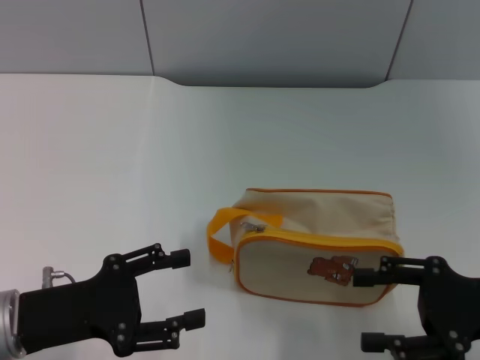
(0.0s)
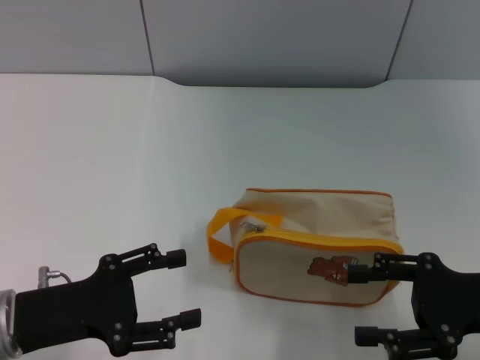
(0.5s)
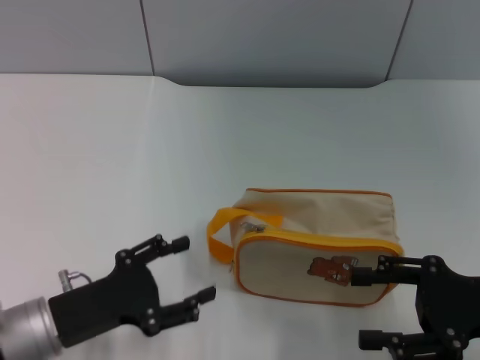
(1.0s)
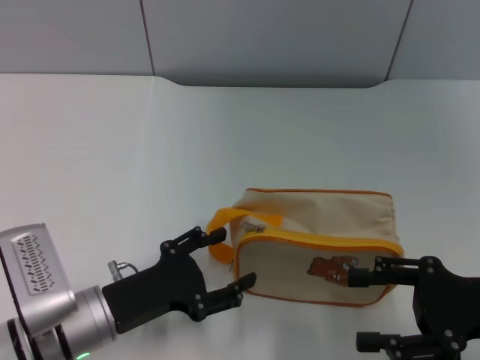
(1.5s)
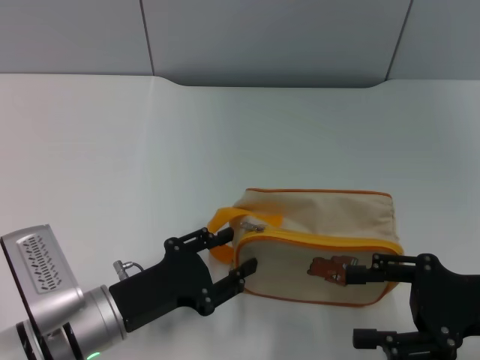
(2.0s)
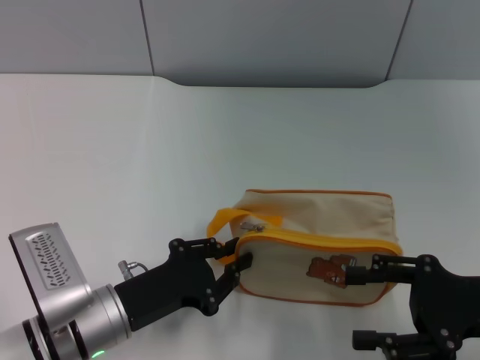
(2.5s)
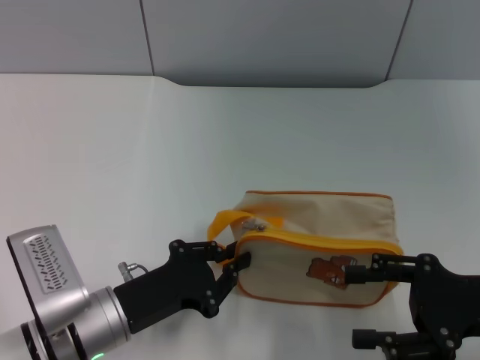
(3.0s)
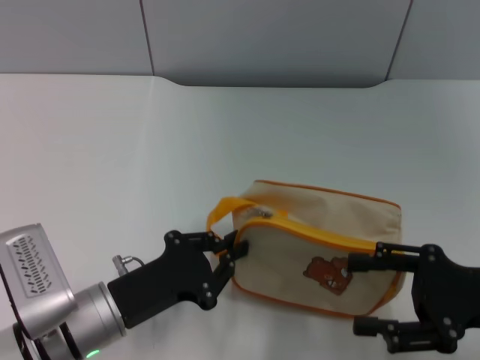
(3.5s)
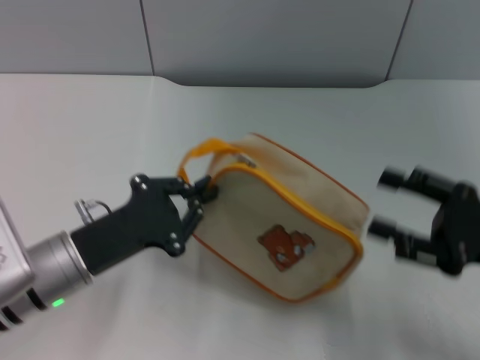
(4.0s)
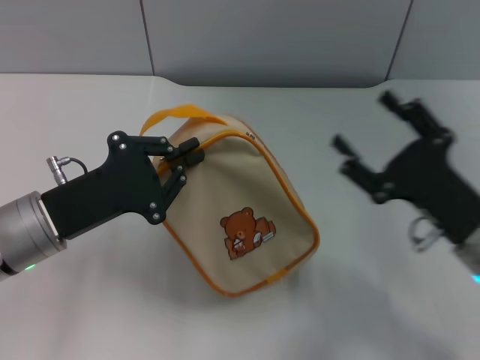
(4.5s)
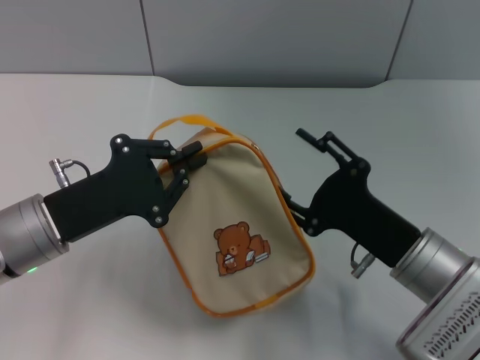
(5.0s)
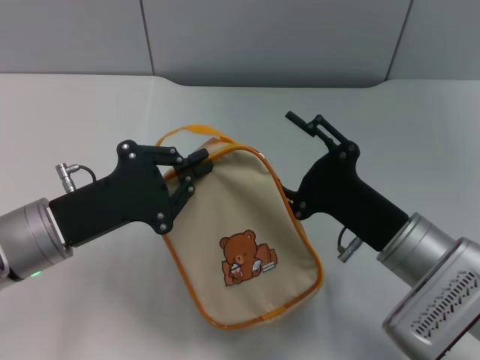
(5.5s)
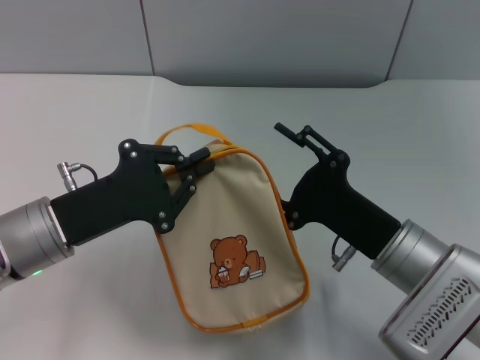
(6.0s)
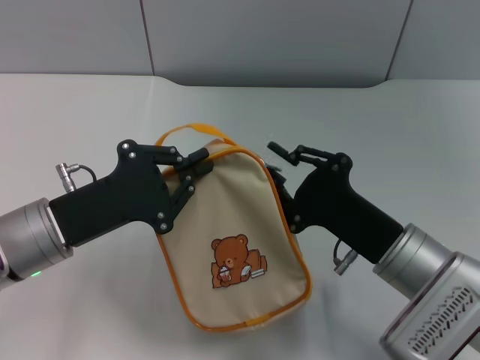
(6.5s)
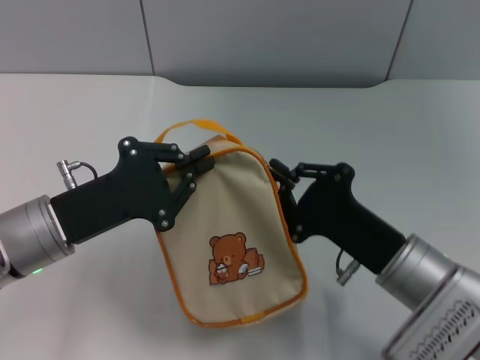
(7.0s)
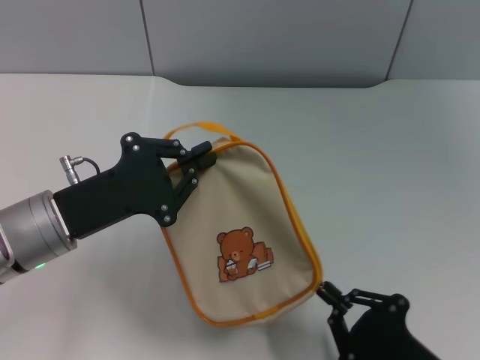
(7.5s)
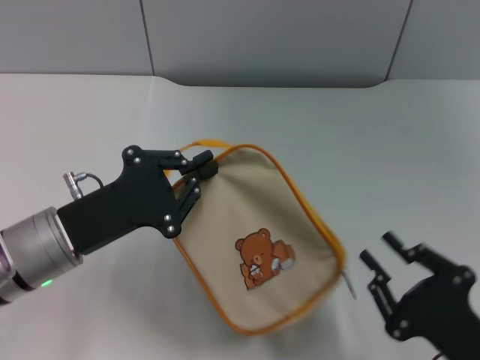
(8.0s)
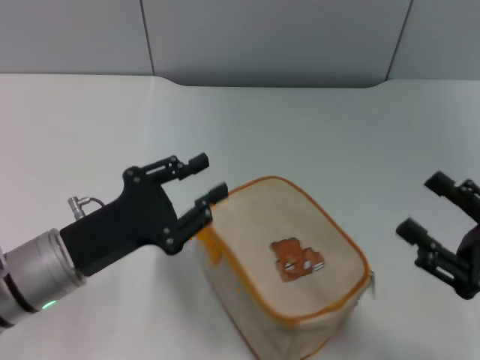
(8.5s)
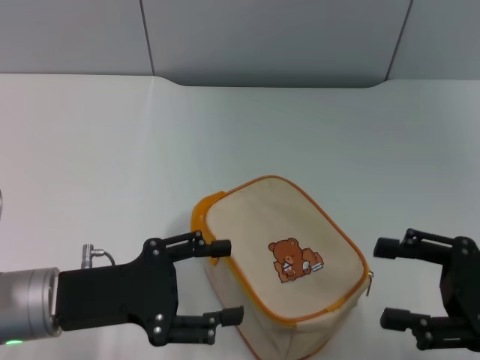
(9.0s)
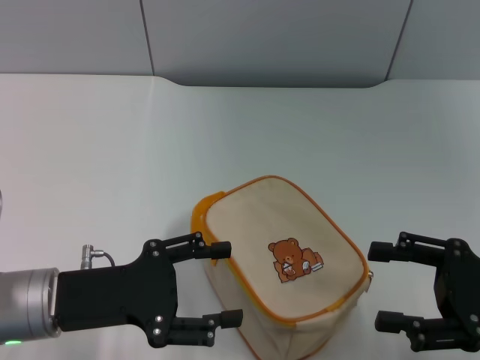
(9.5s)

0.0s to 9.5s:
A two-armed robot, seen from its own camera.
Step, 0.0s to 4.0s: Pick up the bag with left gripper.
Step, 4.5s to 7.5s: Unzip the zipper of bag with right gripper.
0.0s to 2.0s: The left gripper travels to the right and downward by roughly 10 cm.
2.0s to 4.0s: The left gripper ends up about 5 cm from where it was, and closes its fingers.
4.0s to 5.5s: The right gripper is displaced to the left by approximately 15 cm.
5.5s to 7.5s: The right gripper travels backward and downward by approximately 15 cm, and closes its fingers.
7.5s to 9.5s: The right gripper shifts about 15 cm upward, to the right and forward, and opens up. The left gripper opens its fingers.

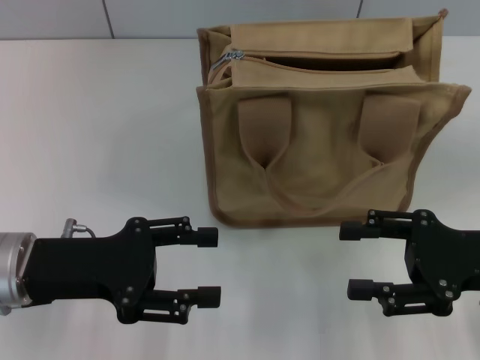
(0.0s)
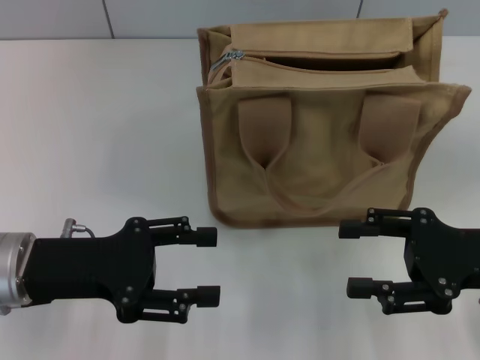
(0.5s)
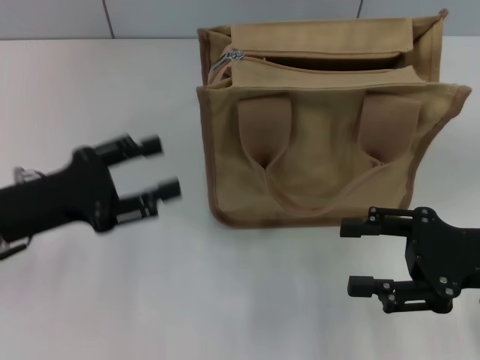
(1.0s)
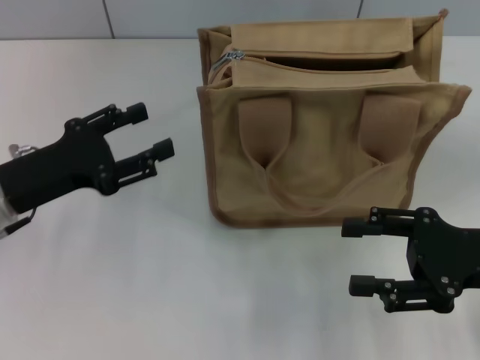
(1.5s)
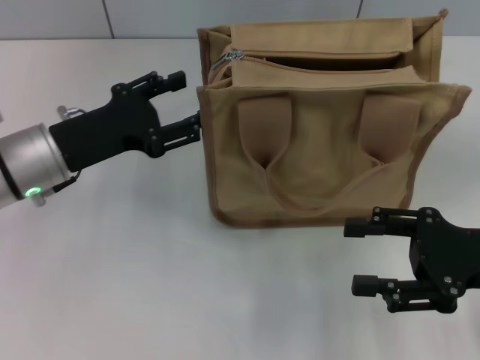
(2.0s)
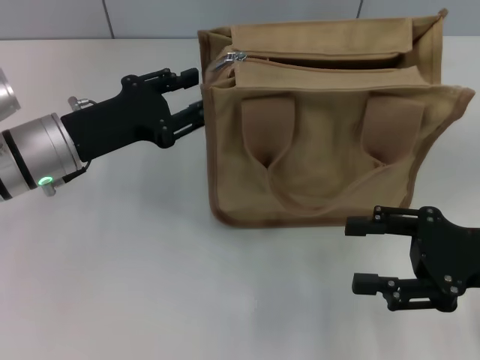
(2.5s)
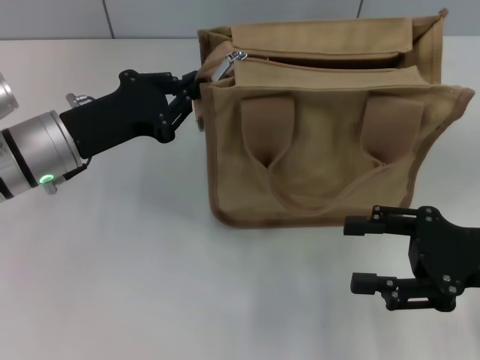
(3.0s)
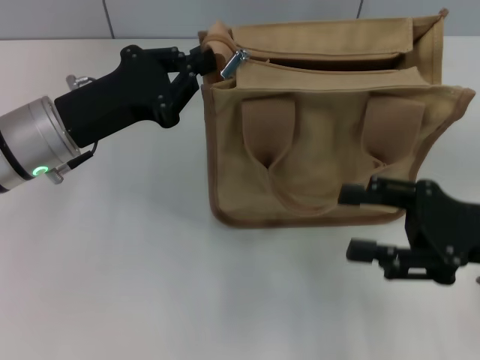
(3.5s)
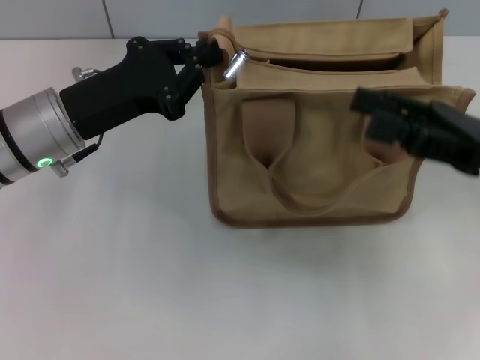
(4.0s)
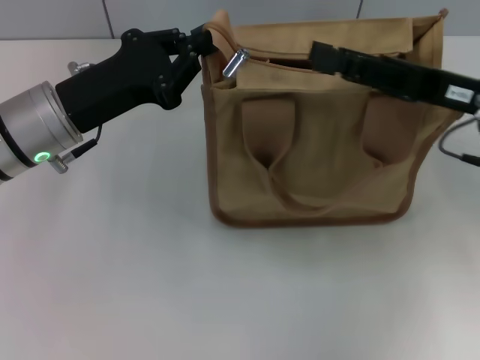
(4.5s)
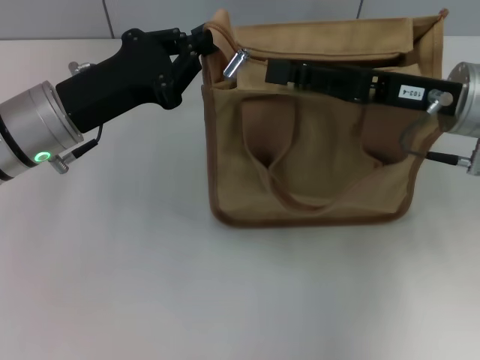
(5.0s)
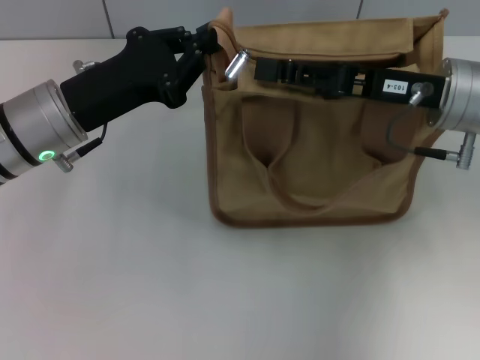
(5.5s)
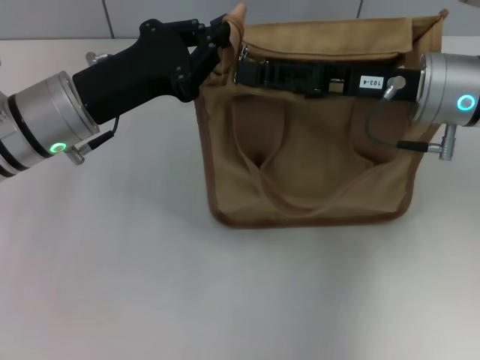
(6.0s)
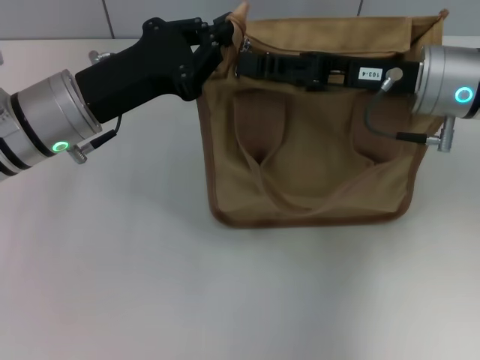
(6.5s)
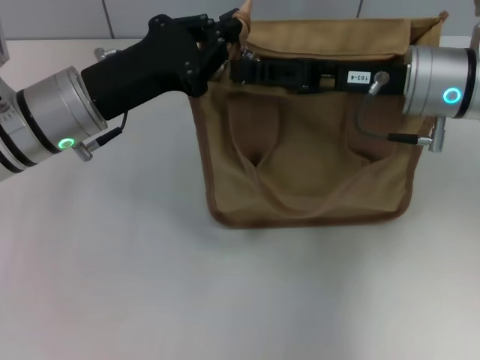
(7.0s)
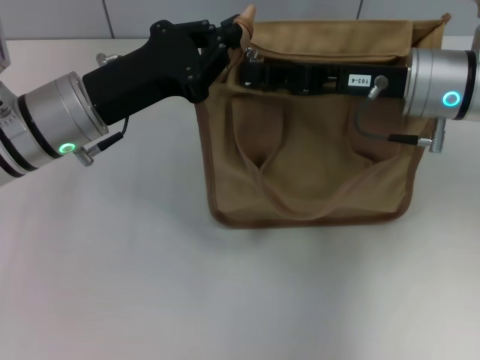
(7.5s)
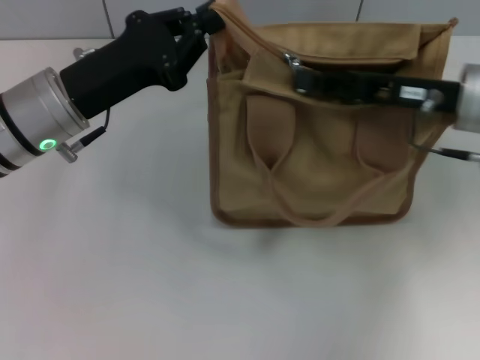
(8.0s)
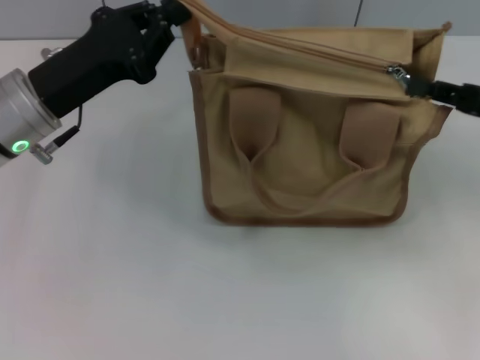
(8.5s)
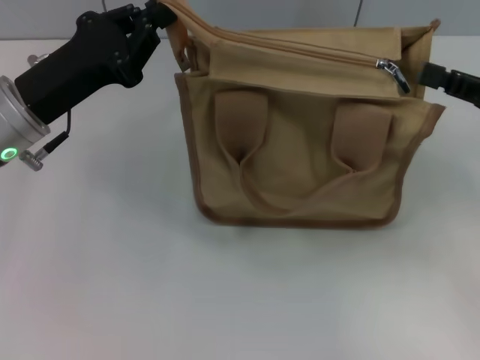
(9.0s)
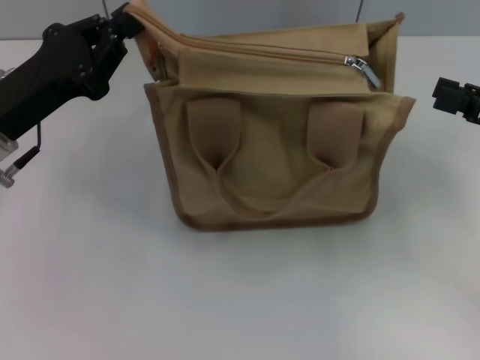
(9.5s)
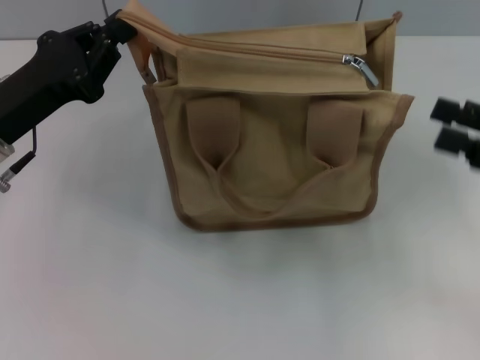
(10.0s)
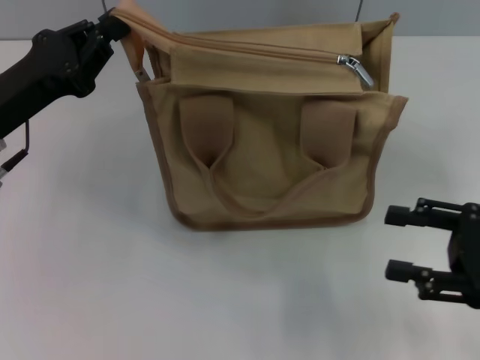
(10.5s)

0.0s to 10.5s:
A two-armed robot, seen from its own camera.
Step, 0.0s to 8.5s: Pull up the zipper with your right hand.
0.0s to 2.0s: The left gripper shifts approximately 10 cm forward.
2.0s to 4.0s: The right gripper changes place by approximately 5 cm; the left gripper closes.
4.0s to 6.5s: The right gripper shifts about 10 cm forward and to the left, and closes.
6.5s to 8.5s: The right gripper moves to the right and backward, approximately 15 cm, and closes its fingers.
8.5s to 10.5s: The right gripper heads backward and downward, covering approximately 10 cm, and opens.

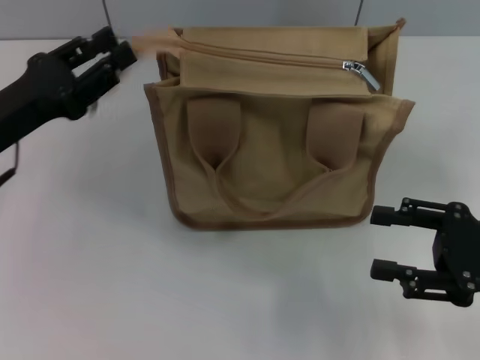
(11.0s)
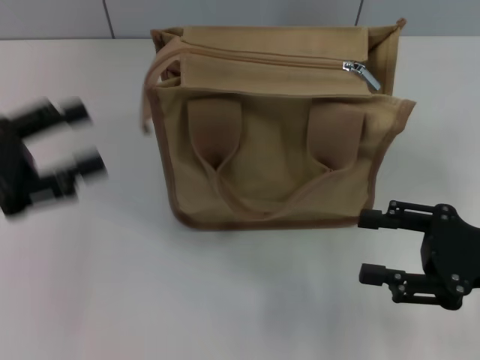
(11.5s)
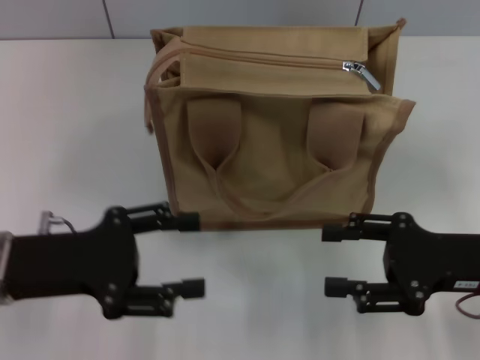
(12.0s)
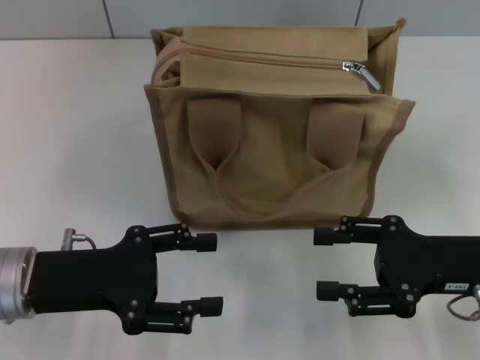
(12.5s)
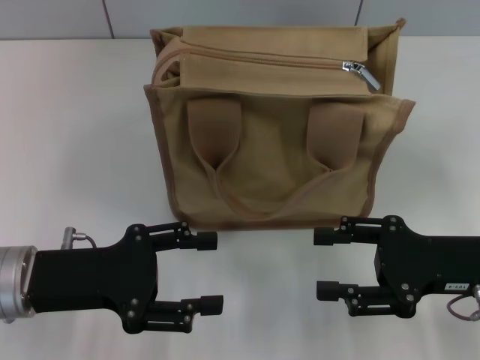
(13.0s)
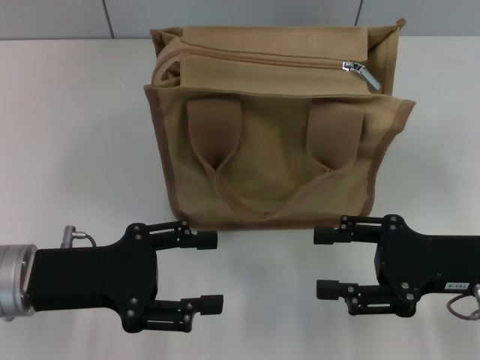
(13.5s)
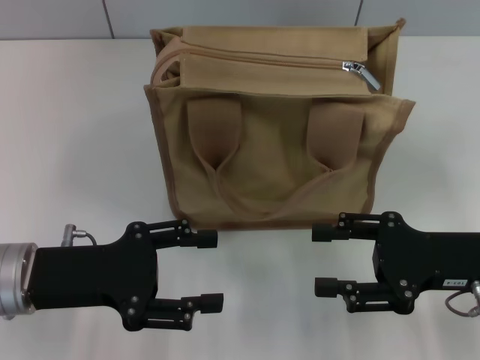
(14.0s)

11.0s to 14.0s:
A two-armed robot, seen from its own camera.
11.0s to 12.5s: The left gripper goes approximately 5 cm backward, and opens its fingers.
12.5s to 14.0s: Both grippers stay put.

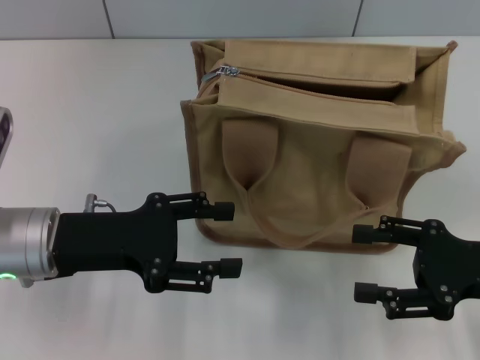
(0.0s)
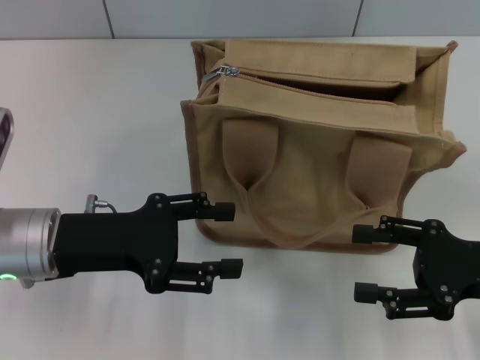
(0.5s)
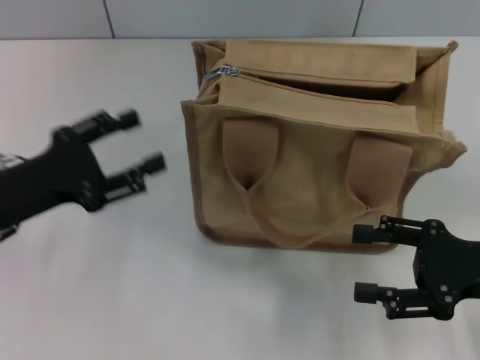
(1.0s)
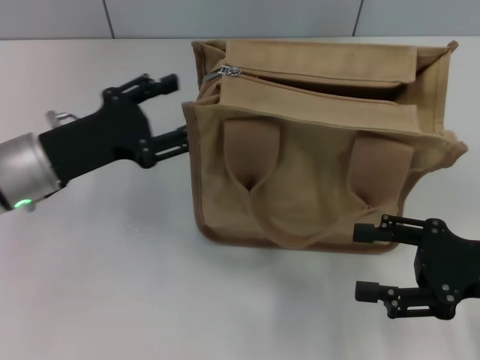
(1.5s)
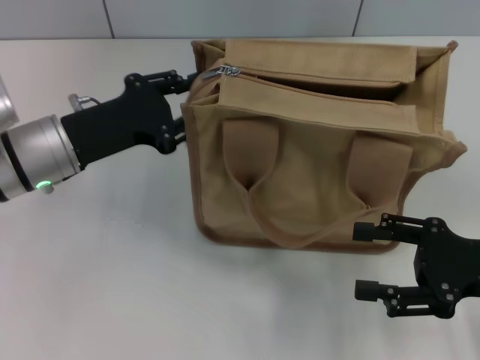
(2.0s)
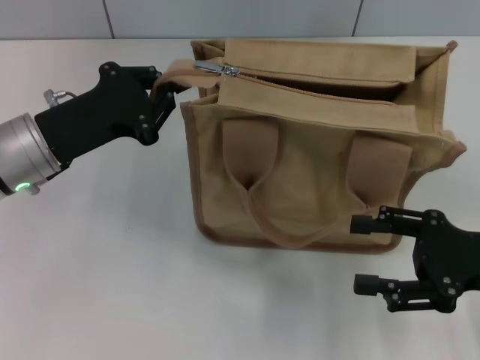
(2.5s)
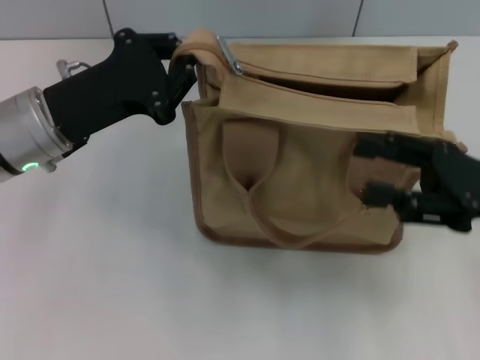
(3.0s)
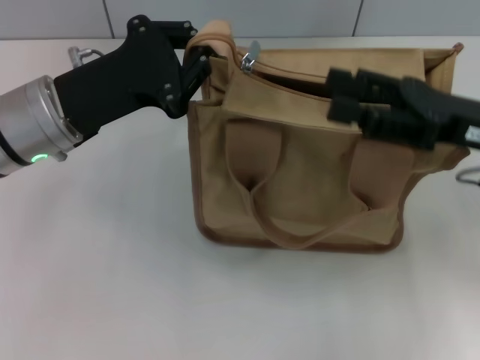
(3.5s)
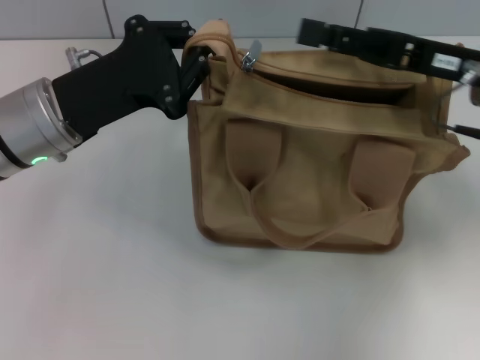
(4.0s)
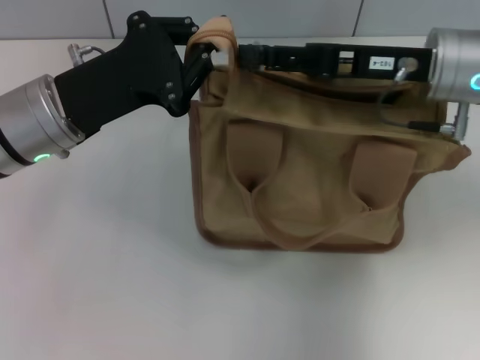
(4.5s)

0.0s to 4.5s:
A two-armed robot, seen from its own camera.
0.0s to 2.0s: The left gripper travels forward by about 5 cm.
2.0s to 4.5s: The left gripper closes, while the right gripper moves forward, to the left and upward, some 20 cm.
